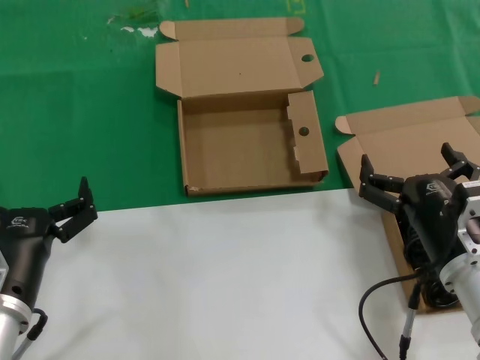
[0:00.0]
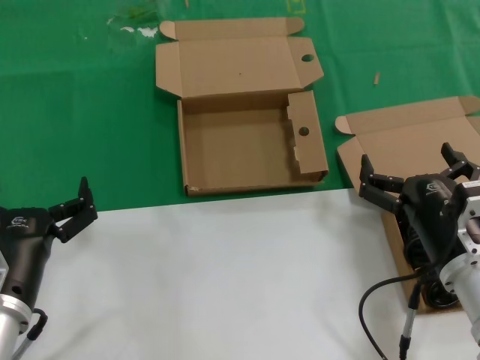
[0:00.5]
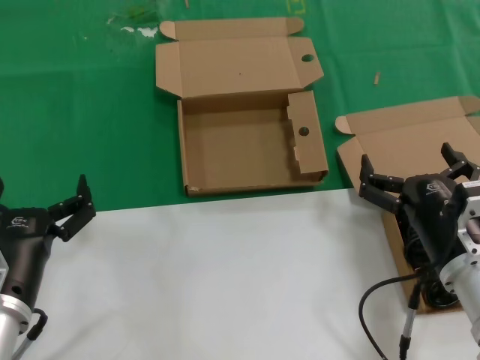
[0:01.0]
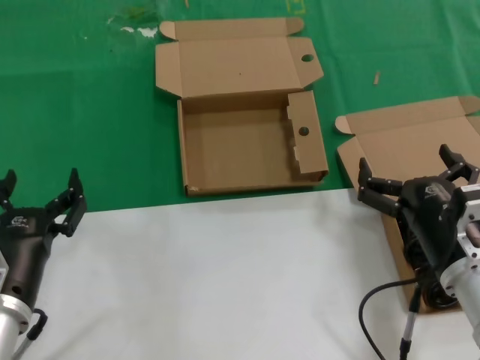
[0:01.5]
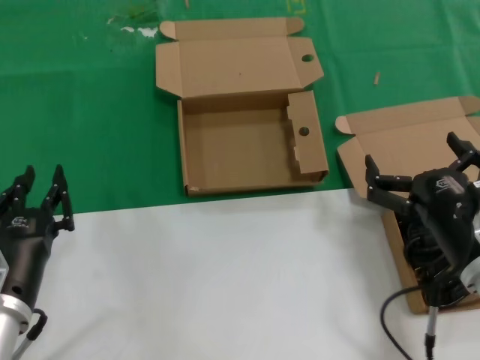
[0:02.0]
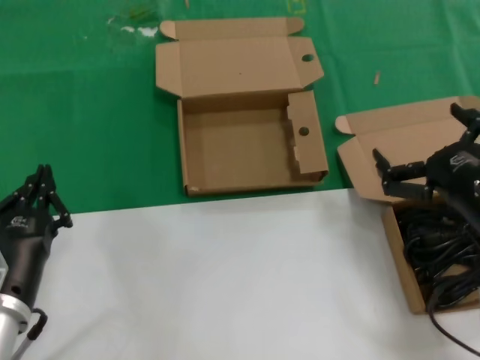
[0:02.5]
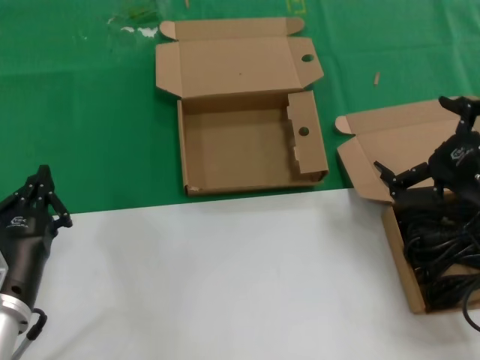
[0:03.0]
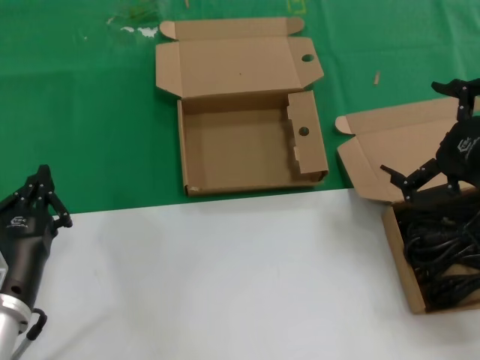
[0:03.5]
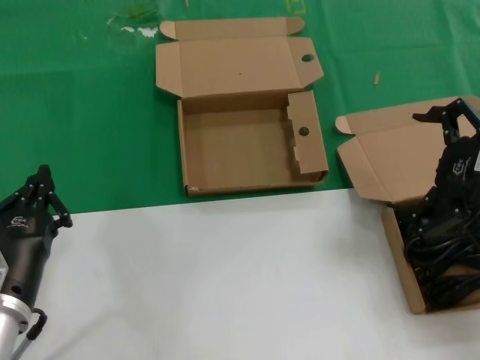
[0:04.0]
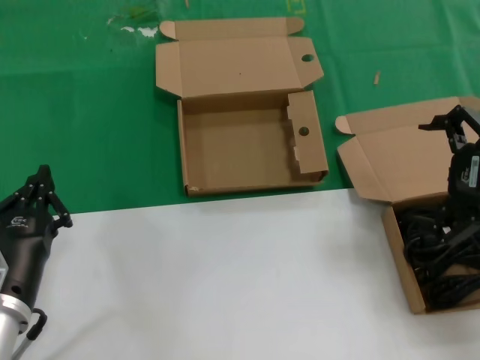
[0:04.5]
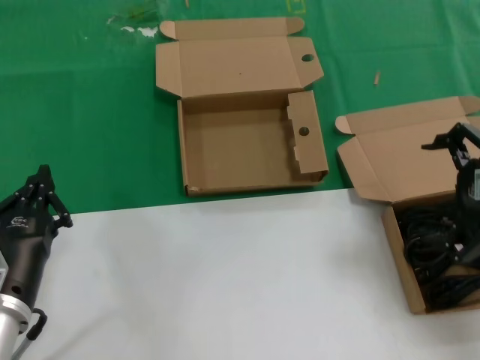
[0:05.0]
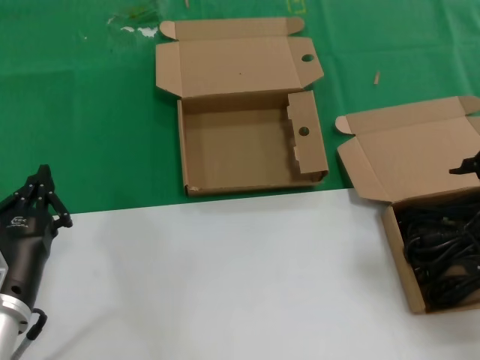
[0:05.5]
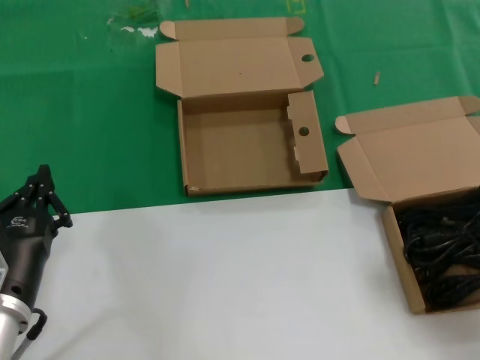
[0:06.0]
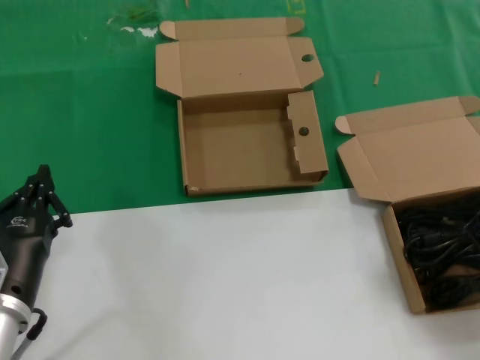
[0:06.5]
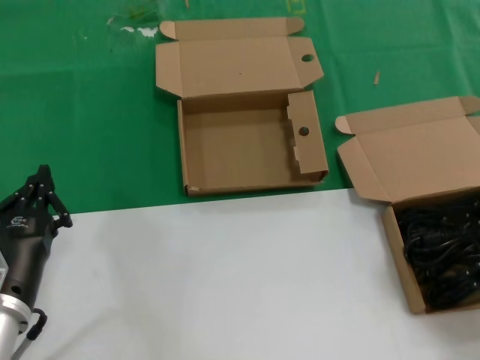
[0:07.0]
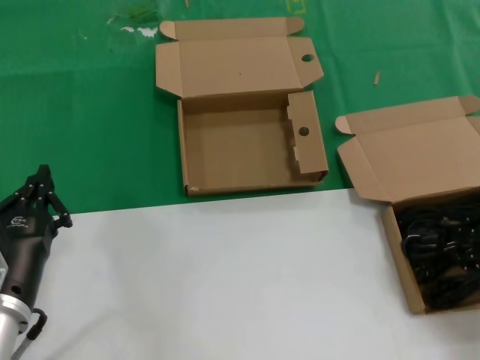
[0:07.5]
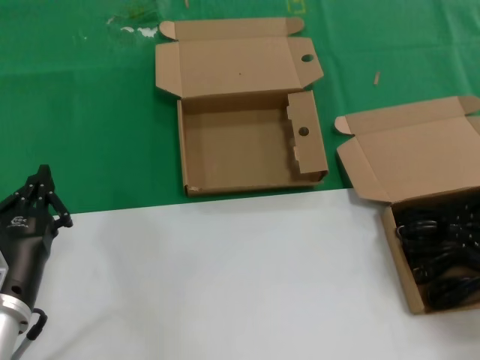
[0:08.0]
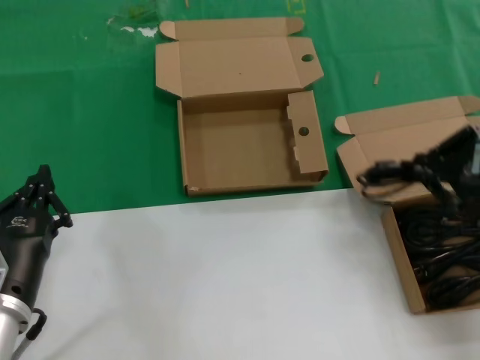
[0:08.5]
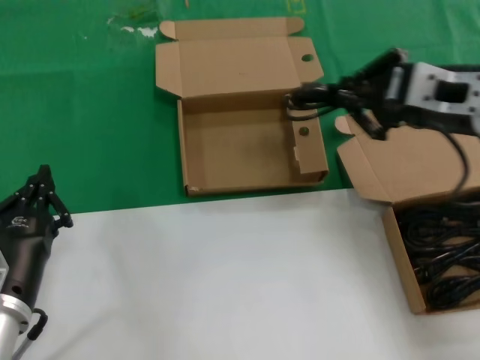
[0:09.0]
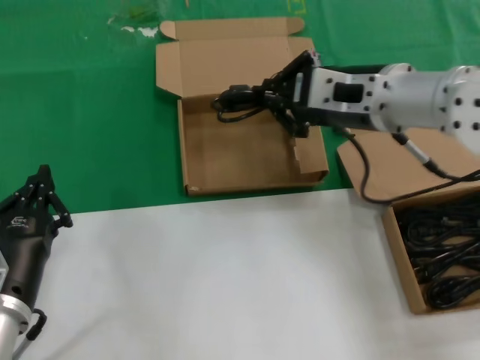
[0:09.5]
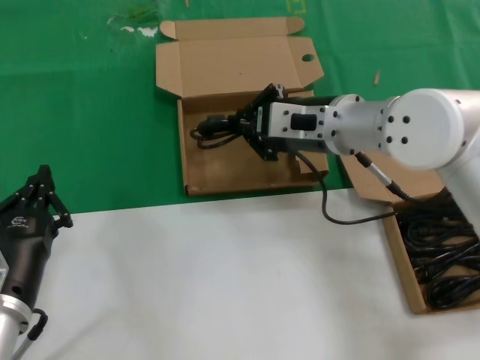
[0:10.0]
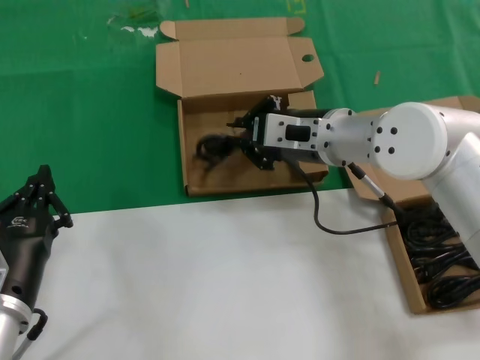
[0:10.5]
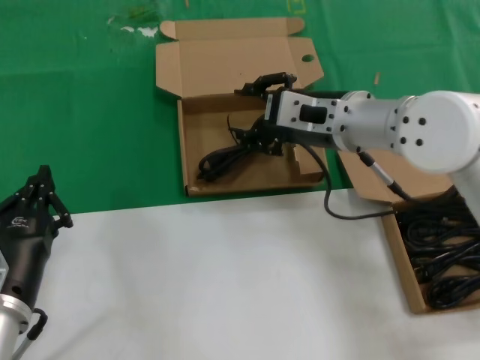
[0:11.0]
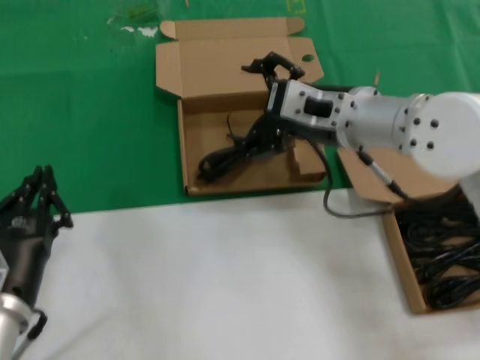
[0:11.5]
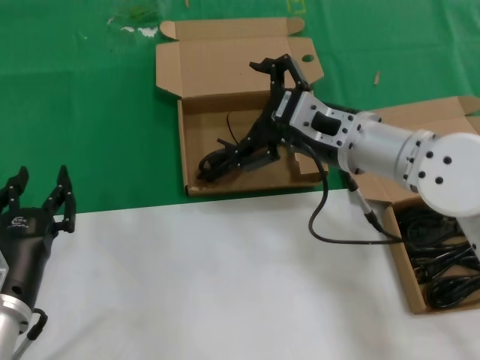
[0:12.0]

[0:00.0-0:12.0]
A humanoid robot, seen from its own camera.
Task of the whole recording: take the parts from the box containing them and put them into an empty box.
Step, 0:00.0 to 0:07.5: Grasp the data cable.
Step, 0:08.0 to 0:11.0: Place the data cable in the another box.
0:00.0 to 0:02.0: The hands stay close to where they were, moving slightly.
0:02.0 to 0:04.0: The right hand shifts roughly 20 cm upward and to the right.
0:08.0 to 0:10.0: The right hand shifts approximately 30 cm to the left and forward.

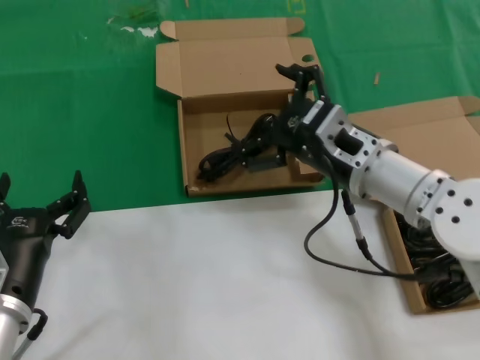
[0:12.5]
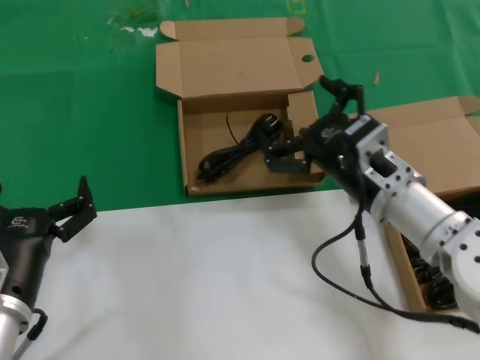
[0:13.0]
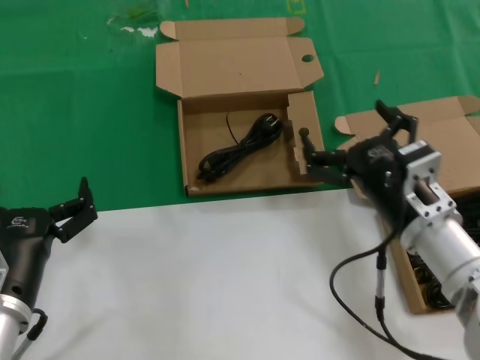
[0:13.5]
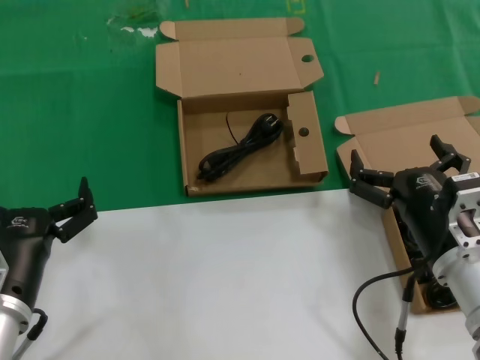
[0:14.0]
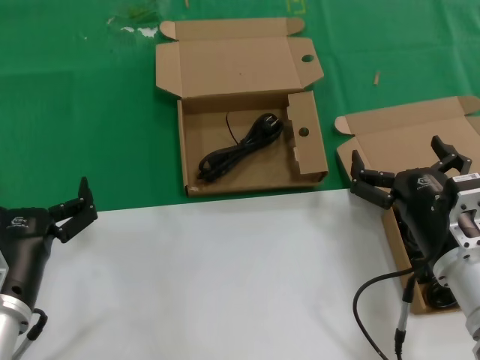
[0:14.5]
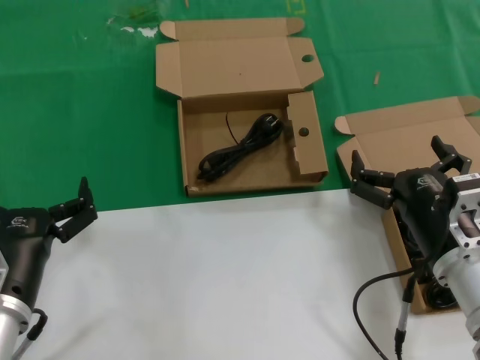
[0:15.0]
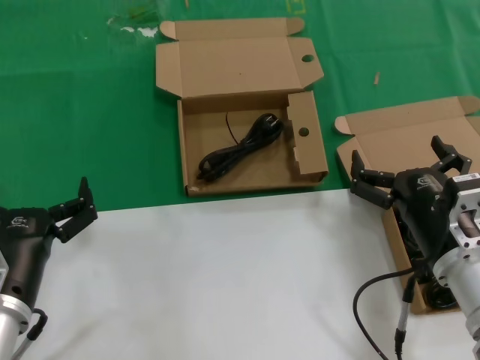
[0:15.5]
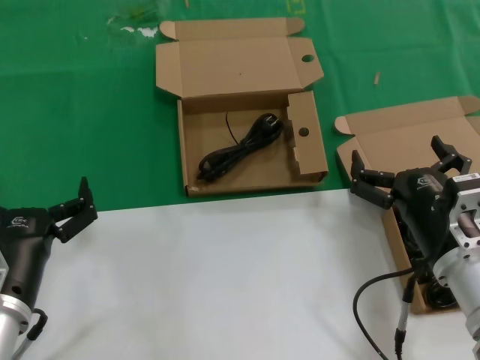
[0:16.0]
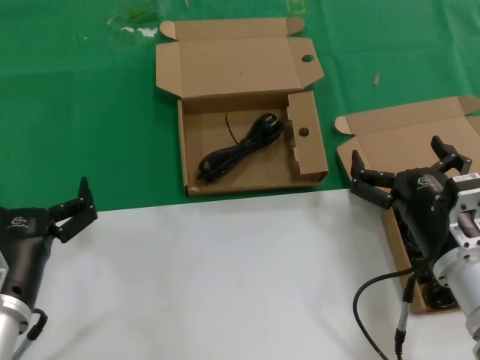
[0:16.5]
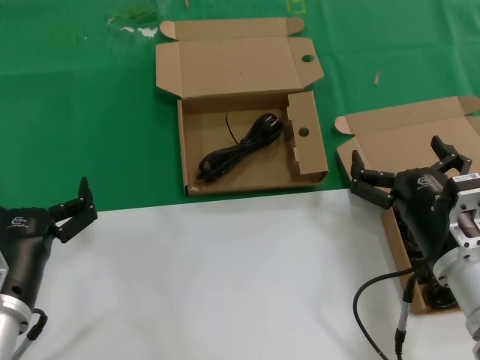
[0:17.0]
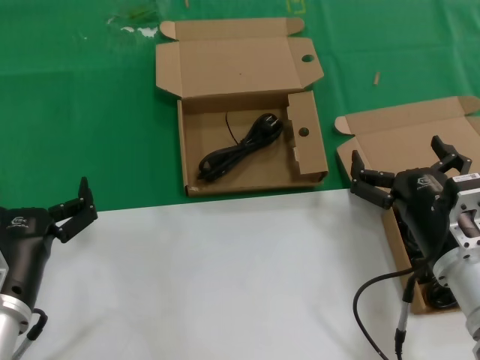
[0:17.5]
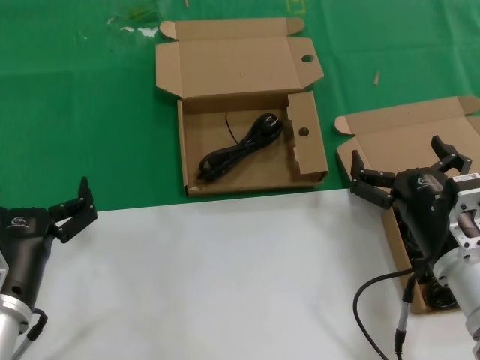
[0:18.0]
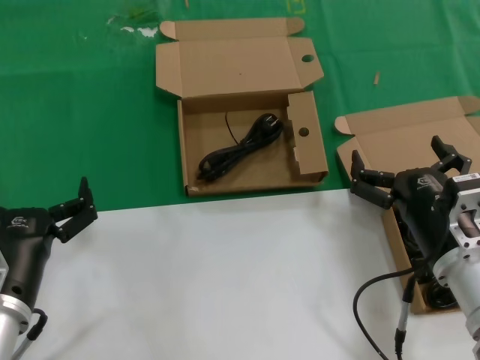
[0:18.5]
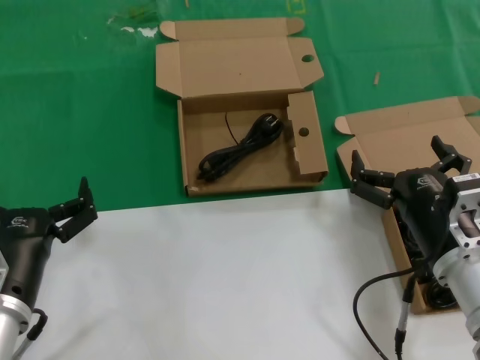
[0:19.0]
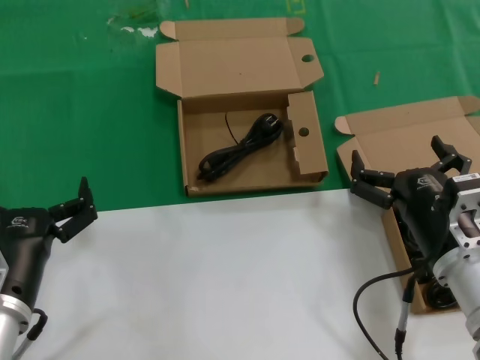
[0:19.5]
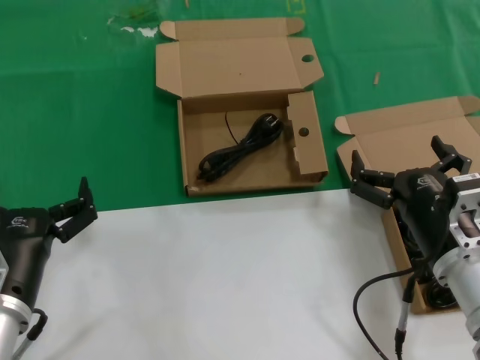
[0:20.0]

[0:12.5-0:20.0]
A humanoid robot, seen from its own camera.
Task of the whole recording: take the parts from the box containing them and put them into an empty box.
0:12.5 to 0:14.5: The right hand travels backward, downward and to the right by some 15 cm.
0:14.5 to 0:20.0: The two hands keep their place.

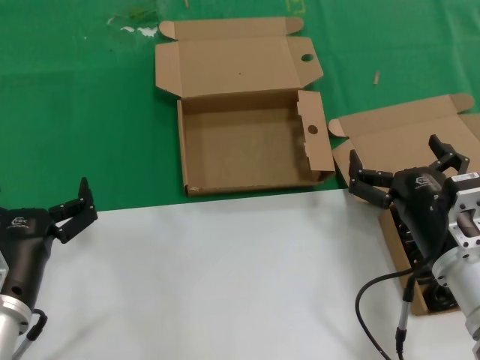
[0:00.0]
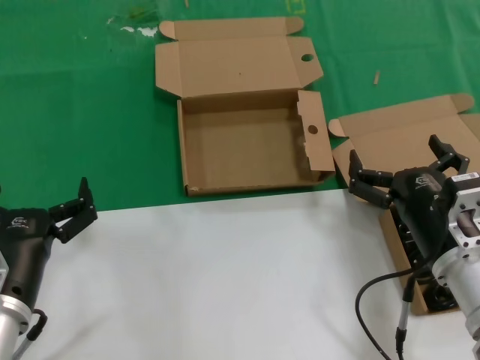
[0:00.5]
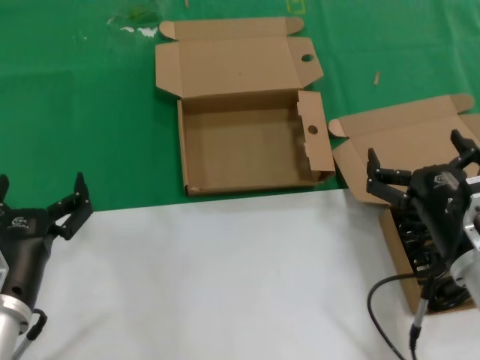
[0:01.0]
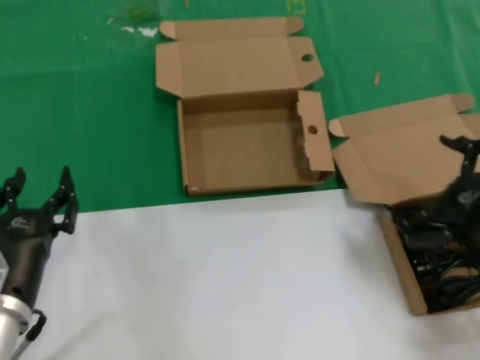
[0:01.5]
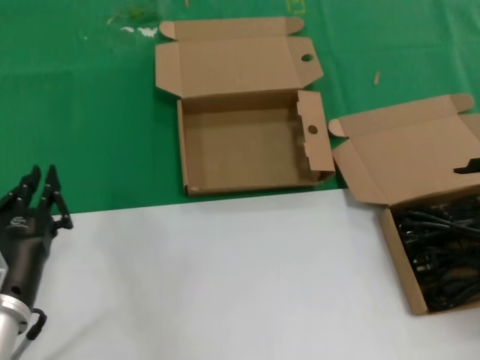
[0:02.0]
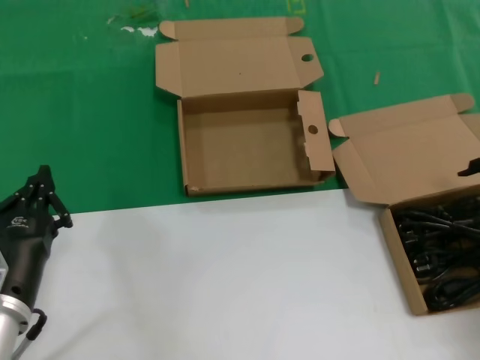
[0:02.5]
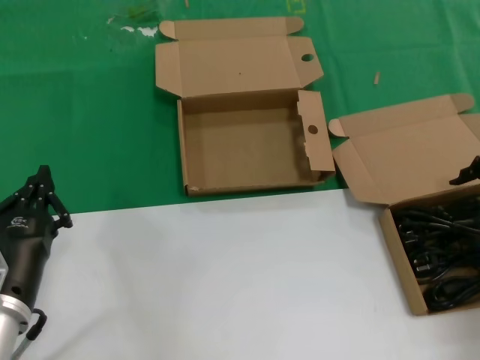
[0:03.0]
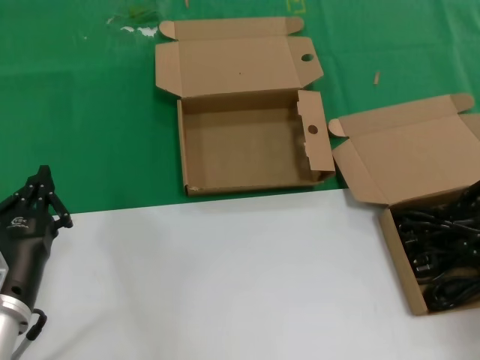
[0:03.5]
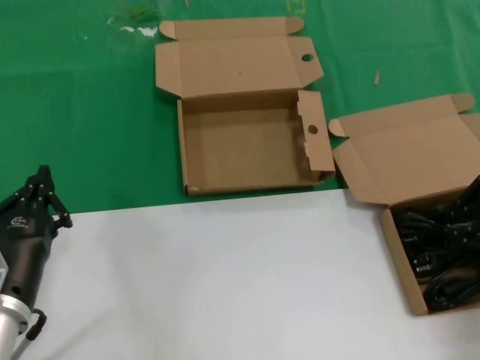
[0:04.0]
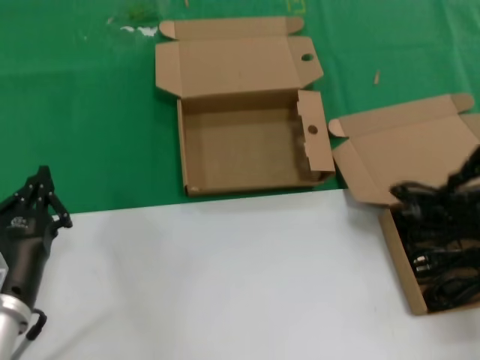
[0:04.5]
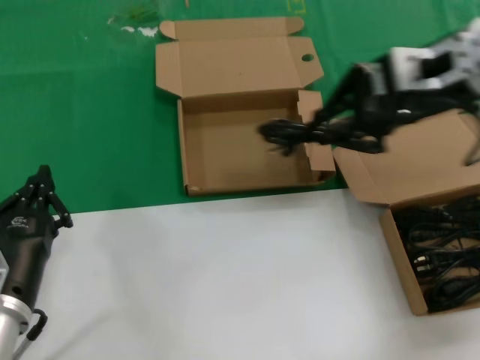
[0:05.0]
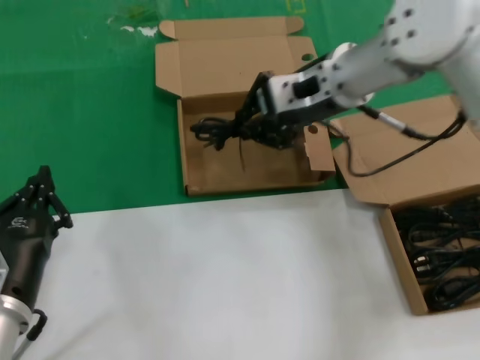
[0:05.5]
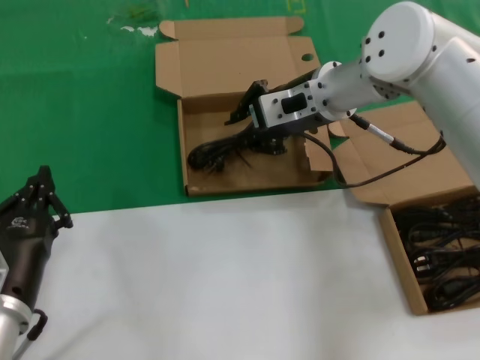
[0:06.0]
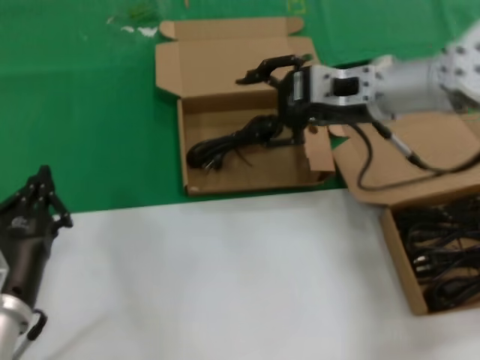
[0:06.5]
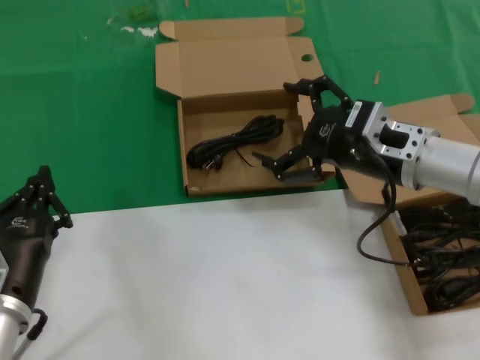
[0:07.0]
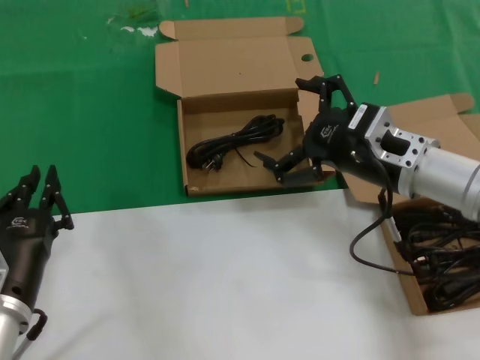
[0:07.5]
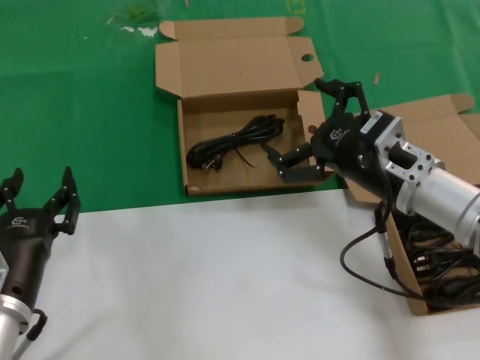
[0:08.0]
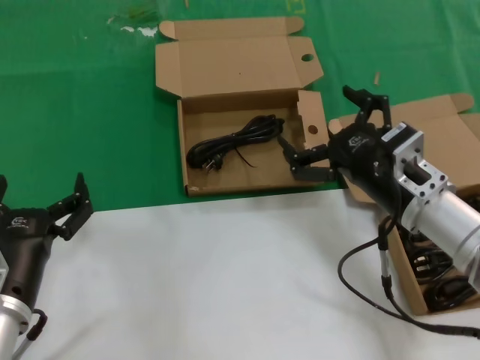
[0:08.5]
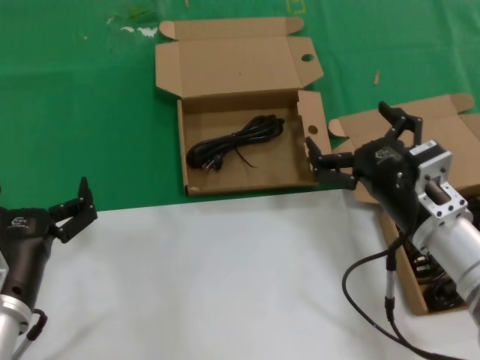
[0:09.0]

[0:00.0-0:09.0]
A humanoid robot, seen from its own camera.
Task of the whole recording: take the parts from the box containing them and put them into an empty box.
Step, 0:00.0 to 0:04.0: Grasp the data cable.
Step, 0:04.5 to 0:06.5: Place the data cable in the another box.
0:00.0 to 0:02.0: The right hand travels to the right and upward by approximately 25 cm.
0:02.0 to 0:04.5: The right hand shifts roughly 10 cm upward and forward.
0:04.5 to 0:07.0: The right hand moves to the left and downward, about 20 cm.
0:07.0 to 0:09.0: The right hand shifts some 10 cm downward and backward.
